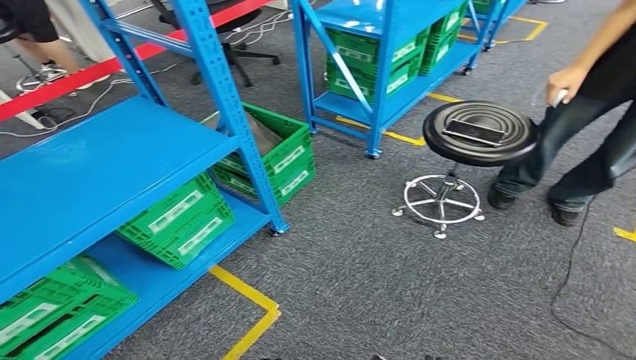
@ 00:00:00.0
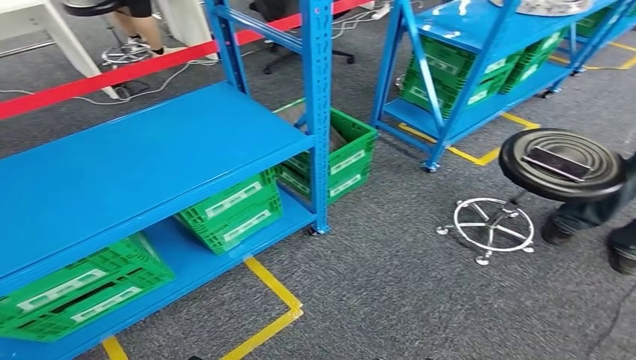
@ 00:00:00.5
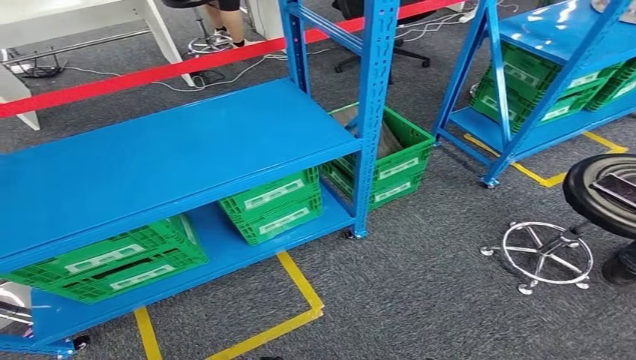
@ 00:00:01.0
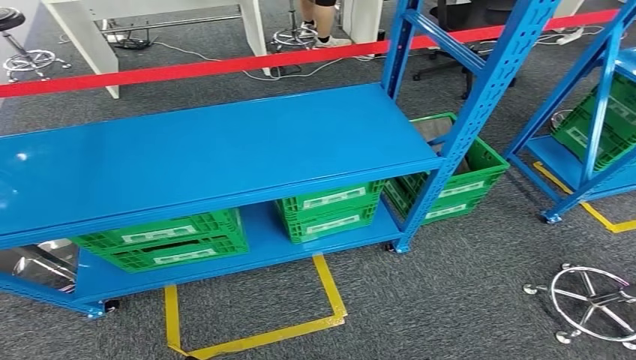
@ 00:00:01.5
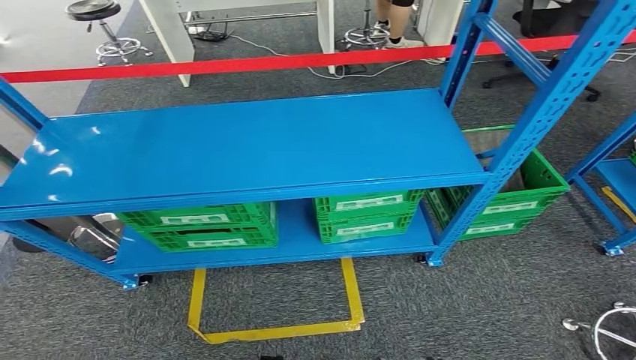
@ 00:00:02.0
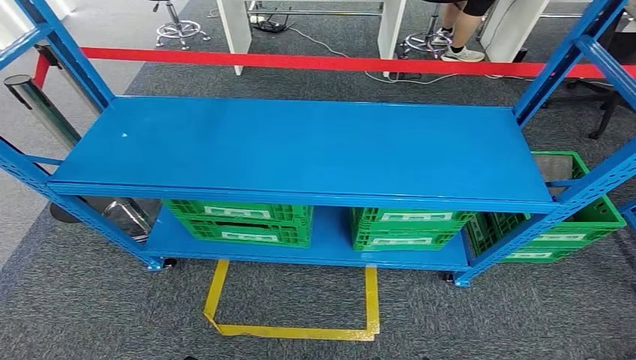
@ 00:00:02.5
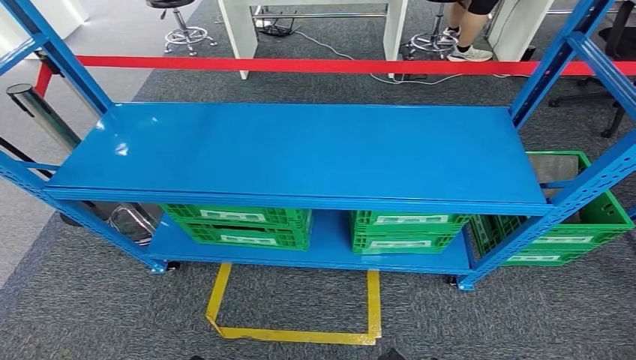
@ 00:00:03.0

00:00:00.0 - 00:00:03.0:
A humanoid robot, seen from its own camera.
Step, 00:00:00.0 - 00:00:03.0: Move to the initial position of the workbench.
